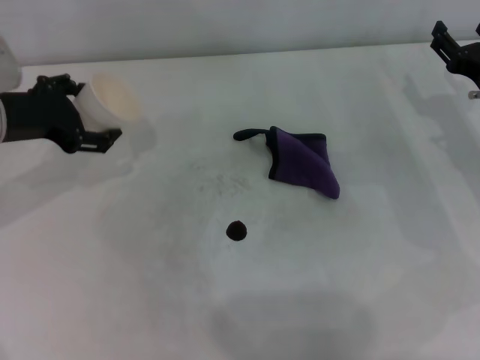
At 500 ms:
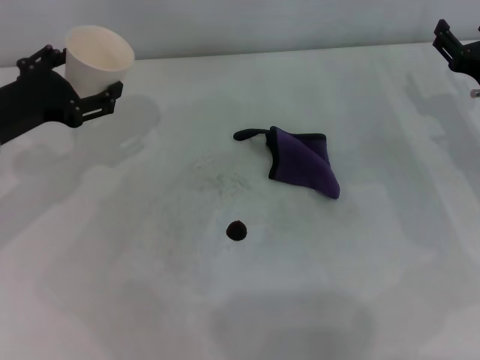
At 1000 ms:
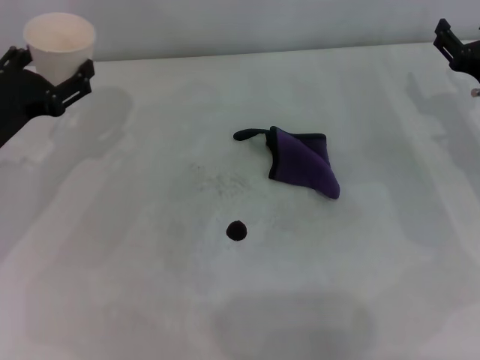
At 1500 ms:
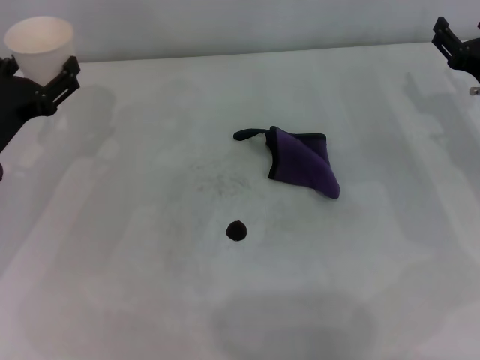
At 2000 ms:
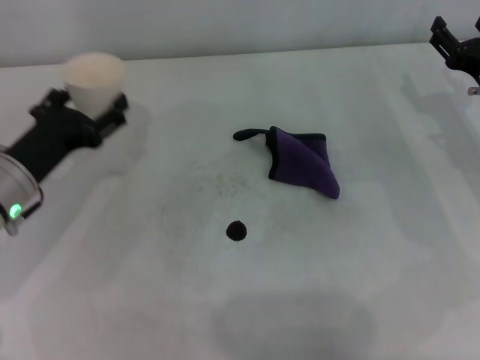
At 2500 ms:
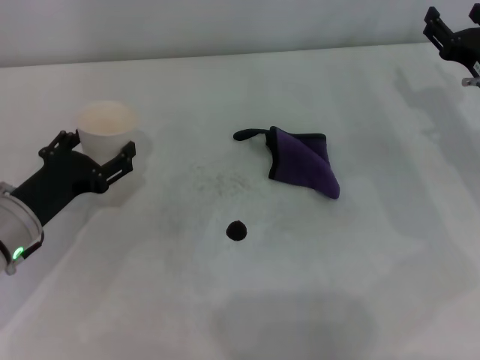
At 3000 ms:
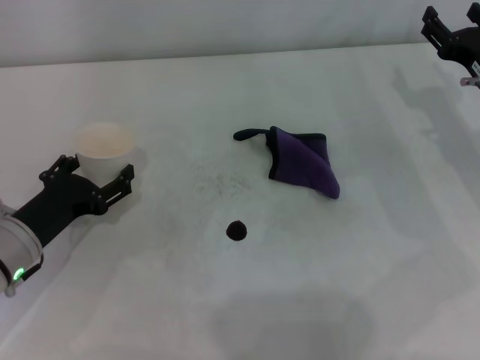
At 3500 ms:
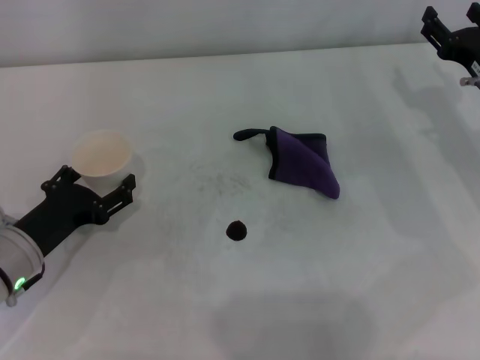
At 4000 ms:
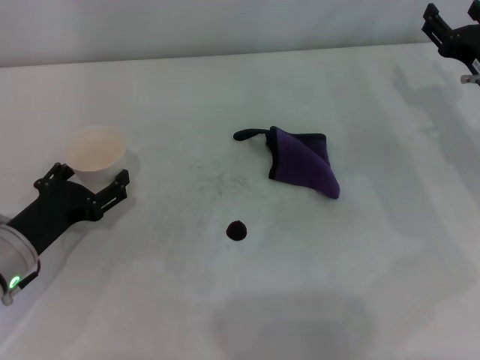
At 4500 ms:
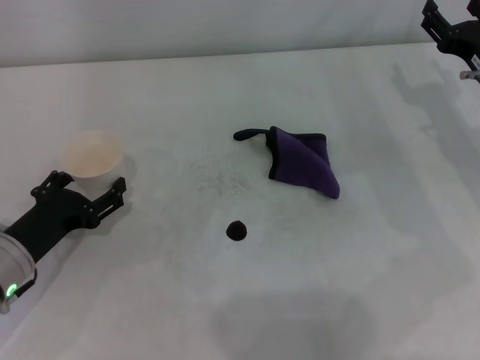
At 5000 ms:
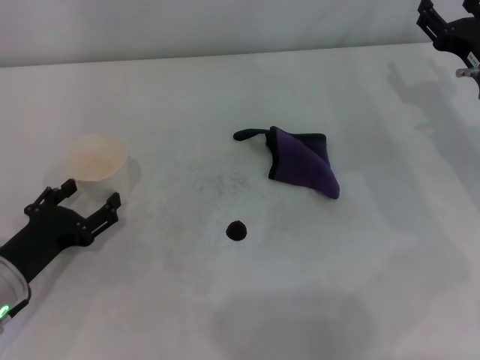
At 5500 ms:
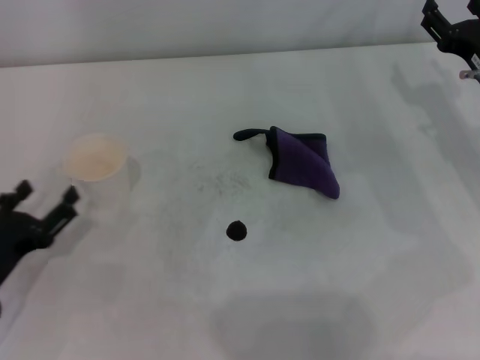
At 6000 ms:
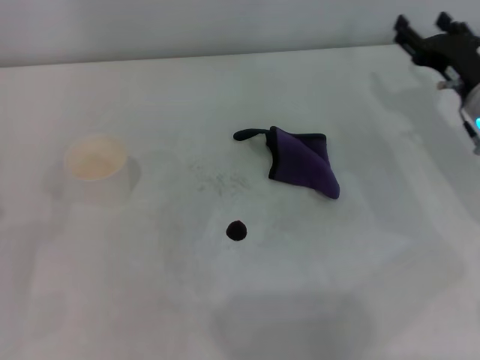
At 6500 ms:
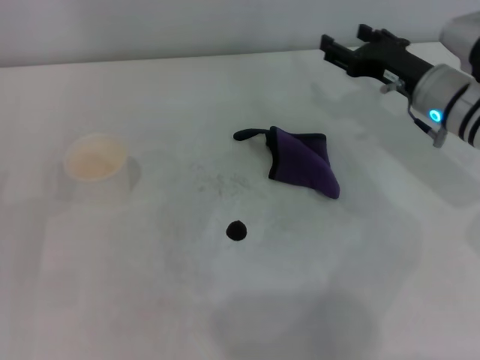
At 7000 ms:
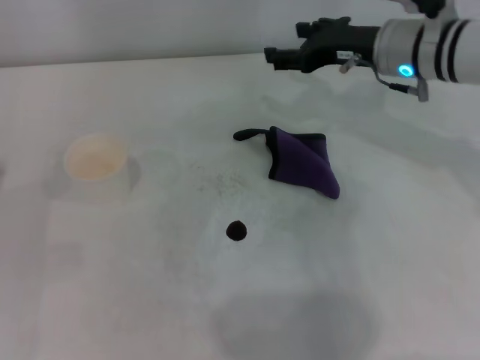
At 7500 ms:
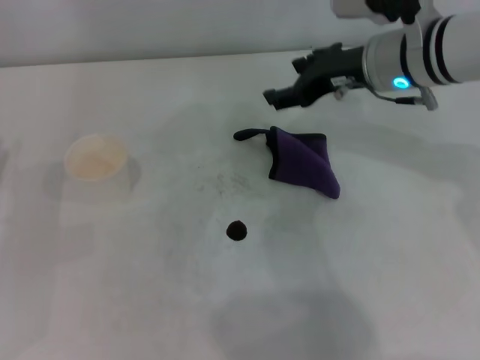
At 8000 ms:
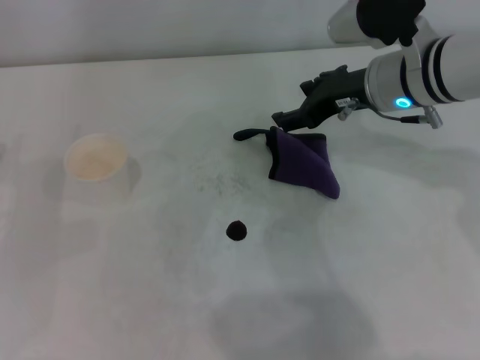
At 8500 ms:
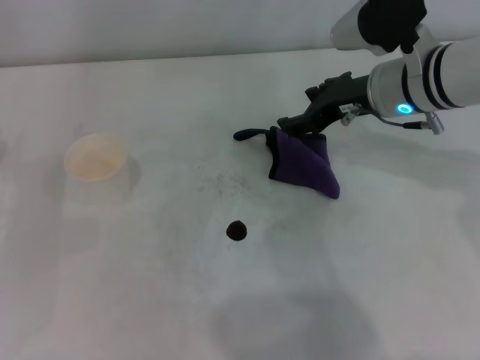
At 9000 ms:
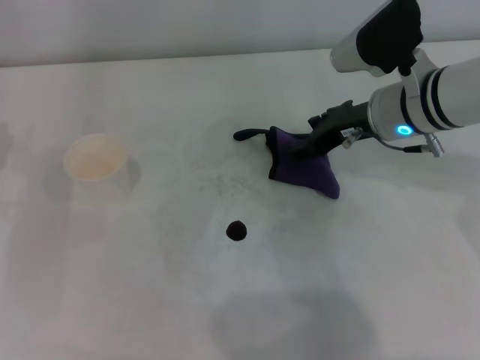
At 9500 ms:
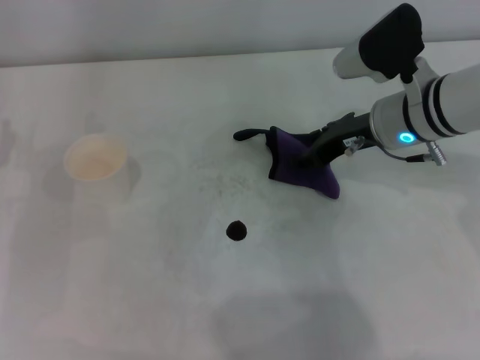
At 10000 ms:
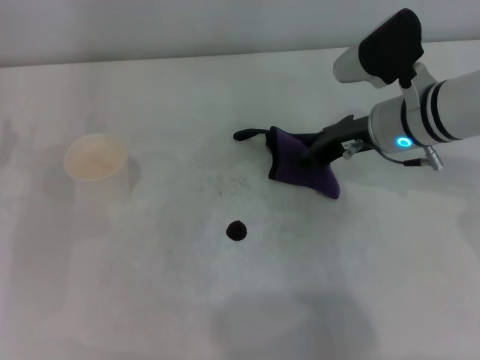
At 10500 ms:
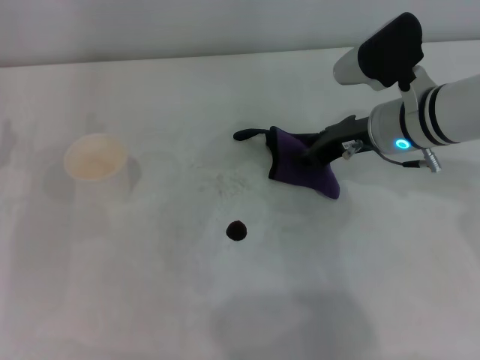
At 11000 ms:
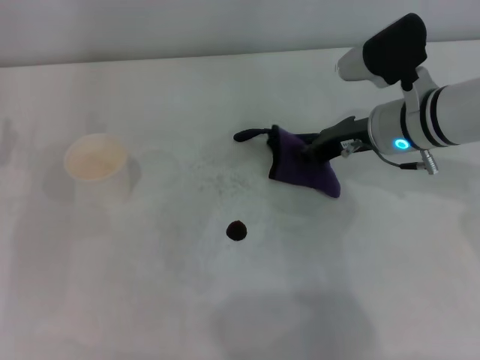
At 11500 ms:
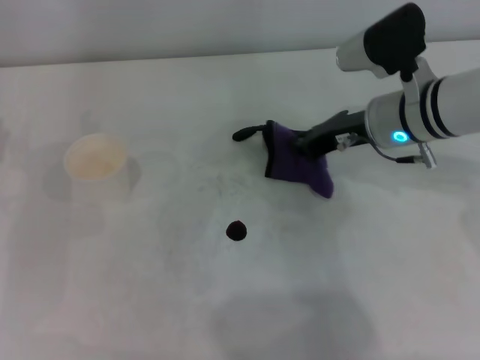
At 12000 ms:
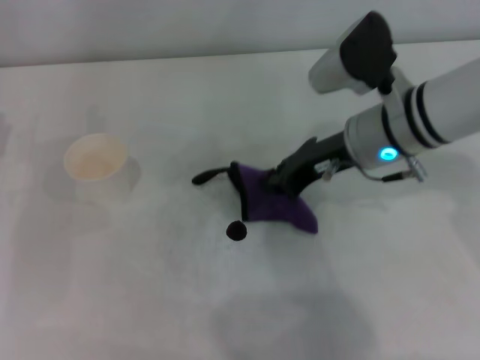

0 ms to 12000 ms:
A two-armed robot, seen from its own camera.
Step, 0 ms to 4500 ms: Stand the paper cup upright with the left gripper.
Step, 5000 ms to 11000 ms: Grasp the rag with the right gripper.
0 ms to 2000 ms: The left gripper heads downward, covering approximately 10 cm.
2000 ms to 4000 ms: The left gripper heads backward, covering about 5 cm.
4000 ms to 6000 ms: The left gripper moves to the left and backward, some 10 cm.
6000 ms to 8000 ms: The left gripper goes about 10 cm forward. Meanwhile the right gripper shifts about 15 cm to the left and upward.
8000 ms to 10000 ms: The right gripper closes up.
10000 ms to 12000 ms: The right gripper closes its fingers.

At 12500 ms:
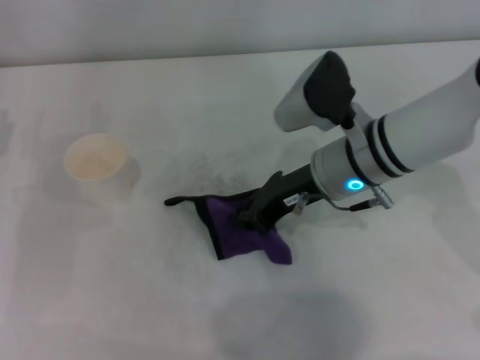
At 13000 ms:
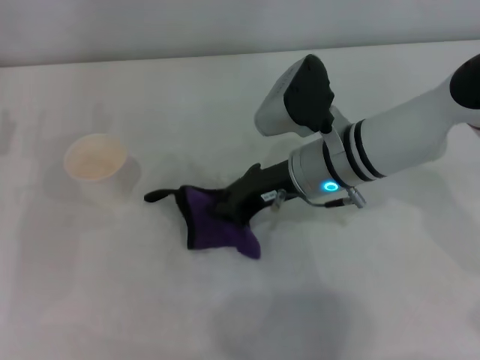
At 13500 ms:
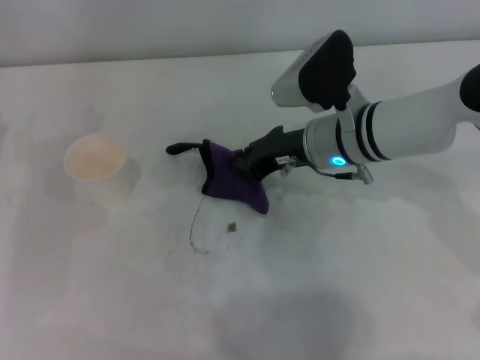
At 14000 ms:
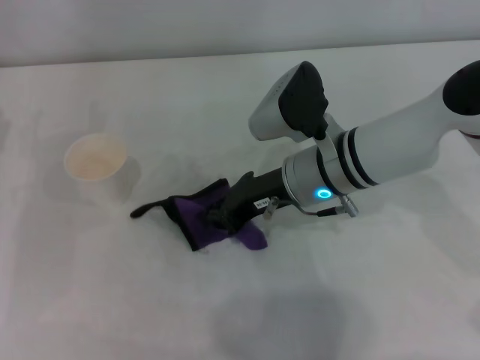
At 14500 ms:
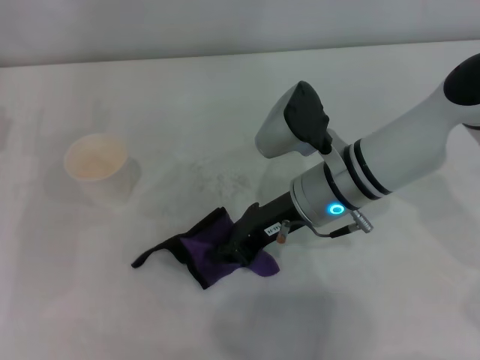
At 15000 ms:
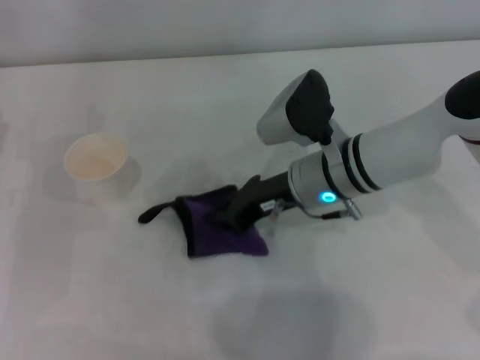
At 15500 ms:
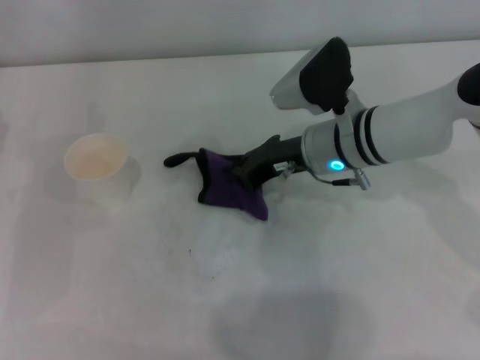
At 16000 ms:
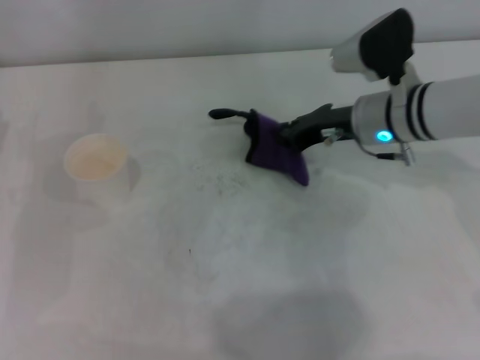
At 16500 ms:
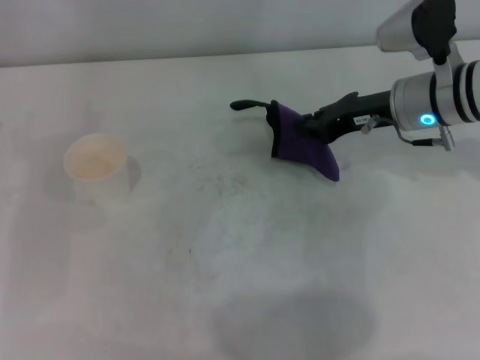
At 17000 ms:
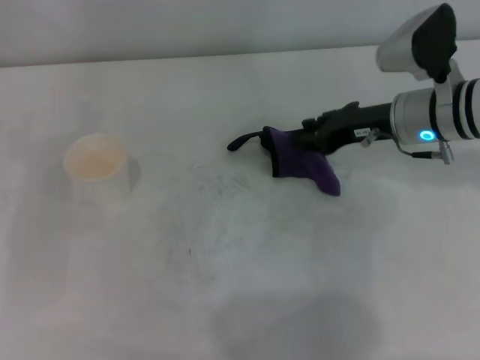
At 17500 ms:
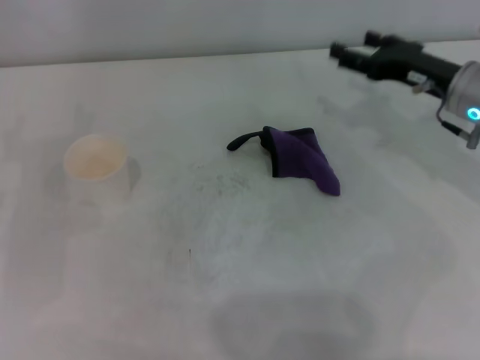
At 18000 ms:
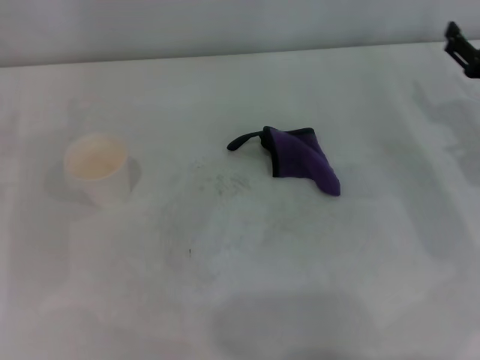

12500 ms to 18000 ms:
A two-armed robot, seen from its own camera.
Step, 12500 ms to 15500 ms: Wipe the stains off the table with the right gripper.
Step, 16000 ms to 16500 ms: Place the rag on the table with the right gripper.
12500 ms to 14500 ms: The grippers move only a little.
14500 ms to 16000 ms: The right gripper is displaced to the right and forward by about 10 cm.
16000 ms to 18000 ms: The right gripper is displaced to the right and backward by some 15 cm, and opens its fingers.
